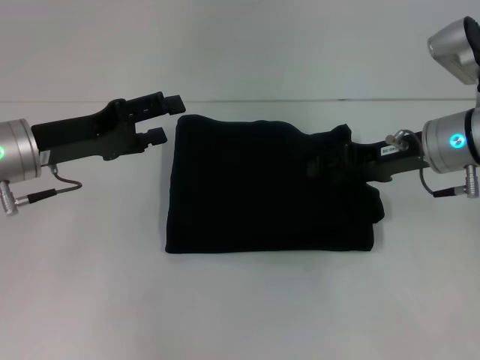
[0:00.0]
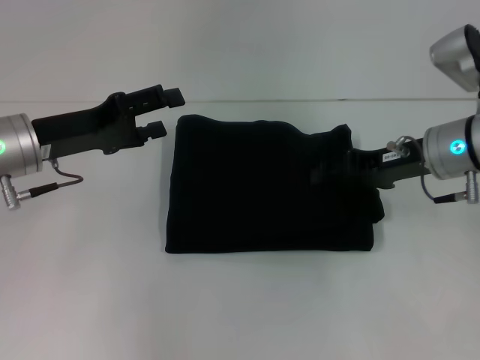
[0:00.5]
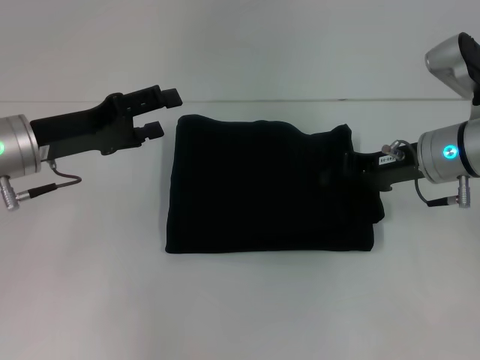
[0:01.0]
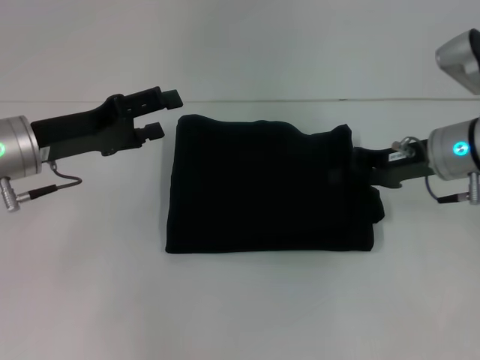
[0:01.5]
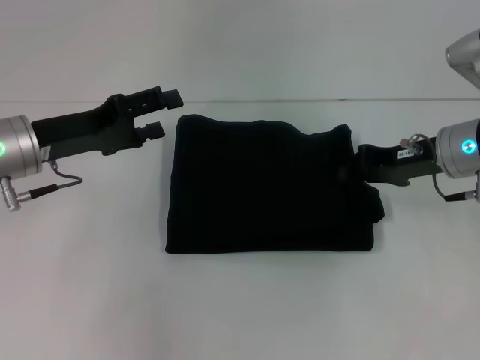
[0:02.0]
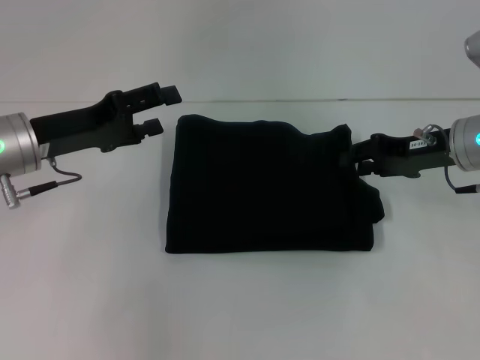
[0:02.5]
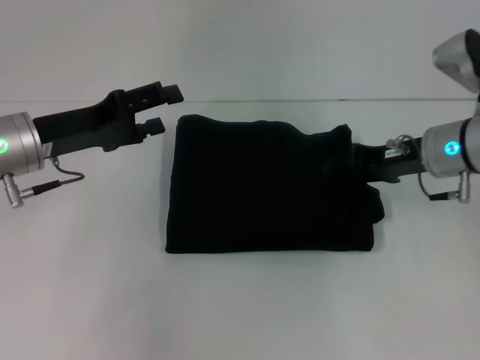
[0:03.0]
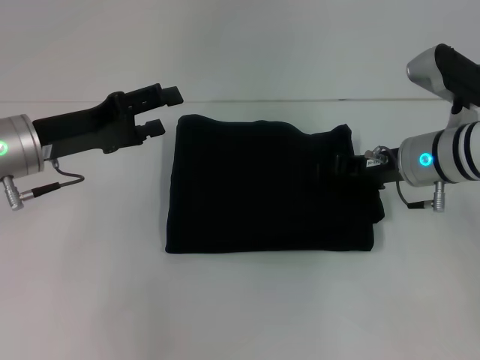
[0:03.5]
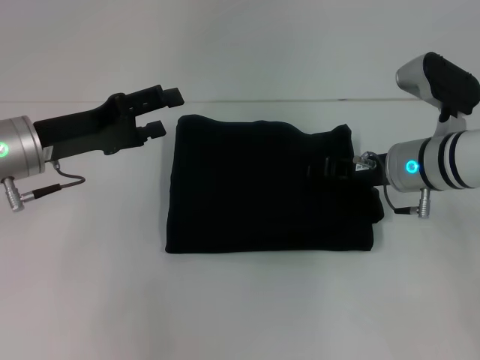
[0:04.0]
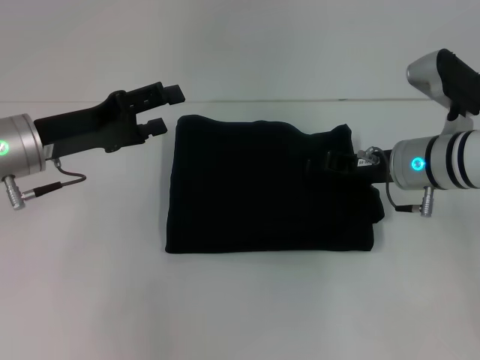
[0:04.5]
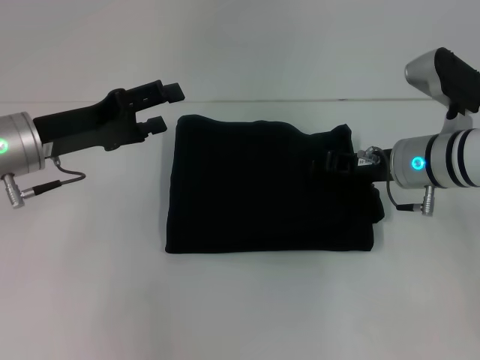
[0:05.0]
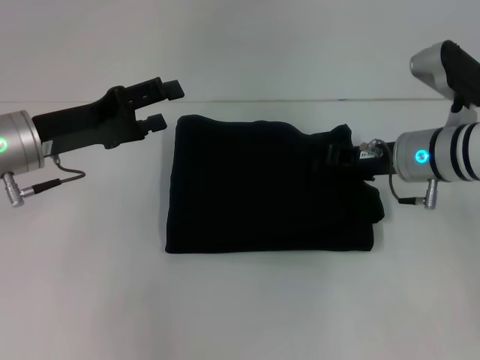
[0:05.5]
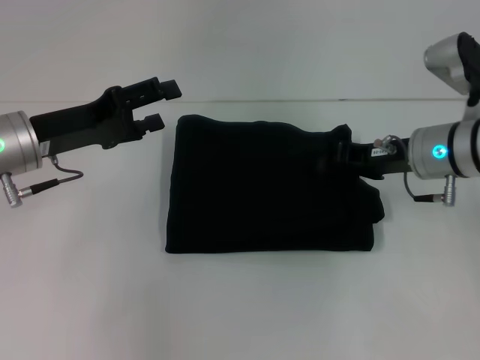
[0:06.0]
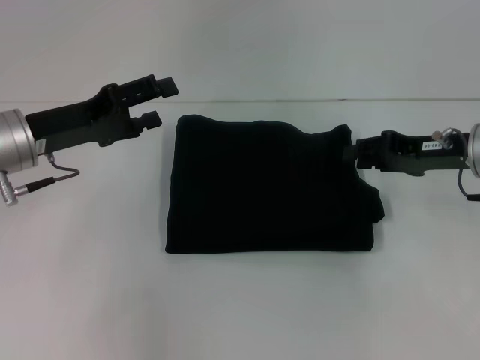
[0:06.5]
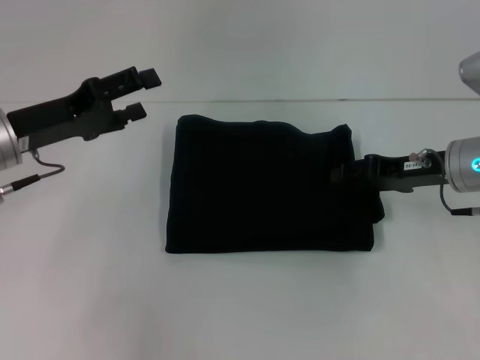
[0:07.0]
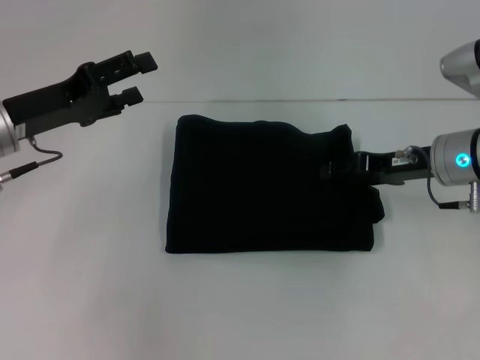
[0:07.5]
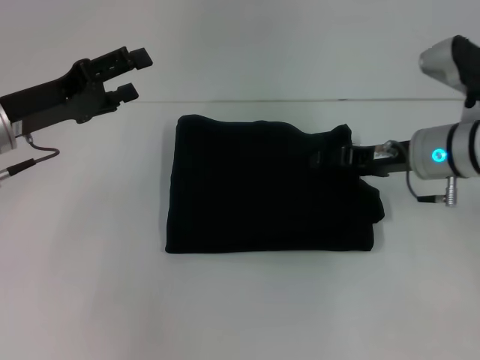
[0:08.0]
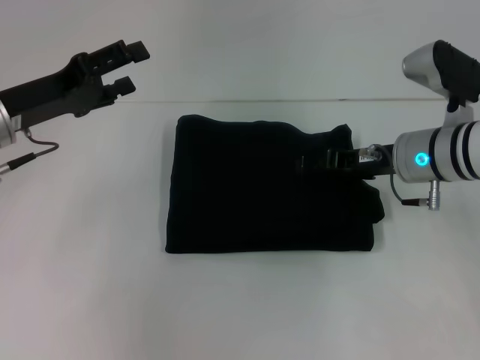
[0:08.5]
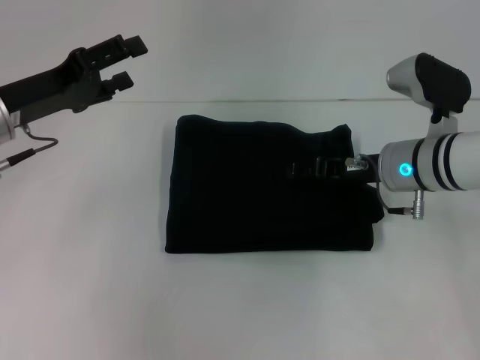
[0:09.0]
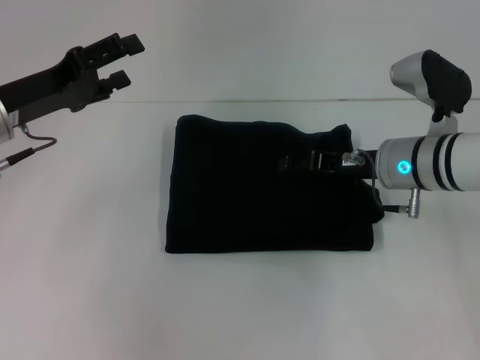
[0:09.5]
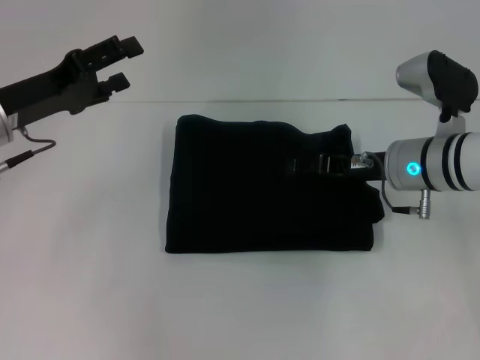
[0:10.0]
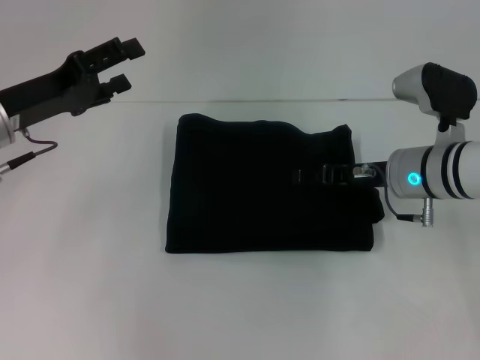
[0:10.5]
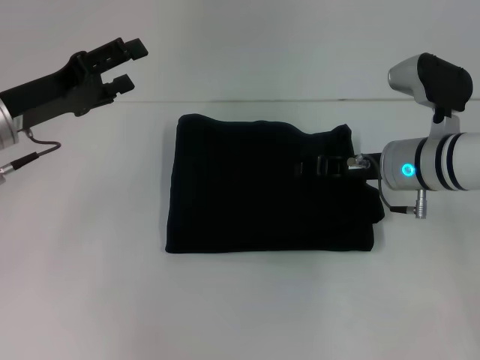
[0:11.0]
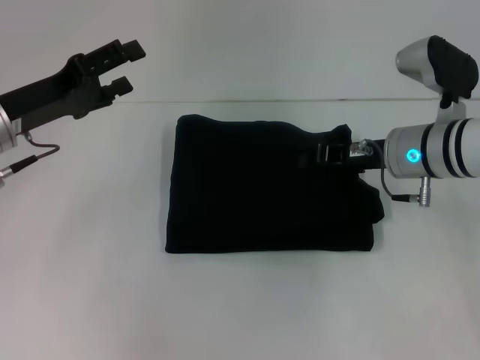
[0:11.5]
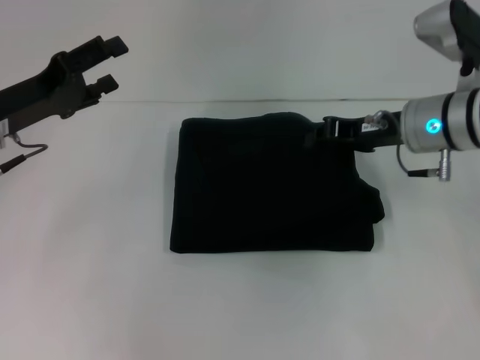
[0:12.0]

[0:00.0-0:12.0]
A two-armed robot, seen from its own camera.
0:00.0 to 0:02.0: The right gripper closes.
0:02.0 to 0:04.0: The right gripper shifts by roughly 5 cm, and opens up.
0:04.0 to 0:06.0: The right gripper closes up.
0:06.0 to 0:08.0: The right gripper opens up.
0:08.0 to 0:10.0: The grippers stay close to where they were, moving slightly.
0:10.0 to 0:12.0: The right gripper travels upward by some 5 cm, and closes its fingers.

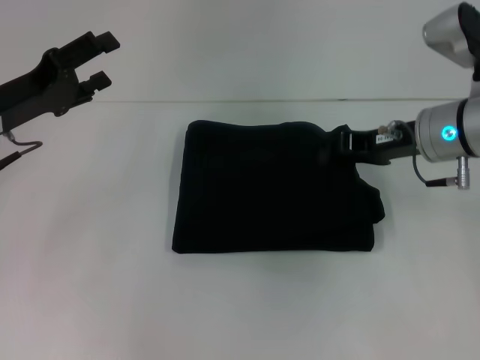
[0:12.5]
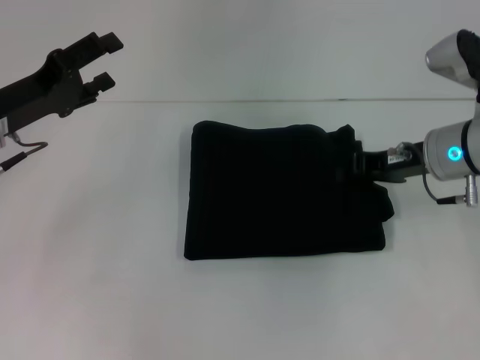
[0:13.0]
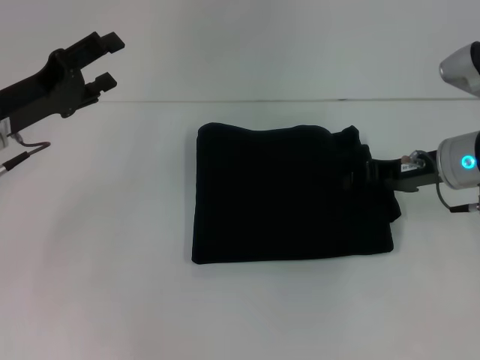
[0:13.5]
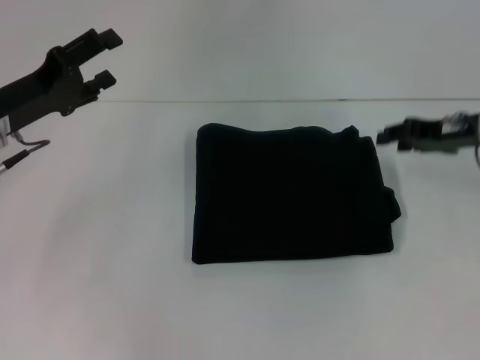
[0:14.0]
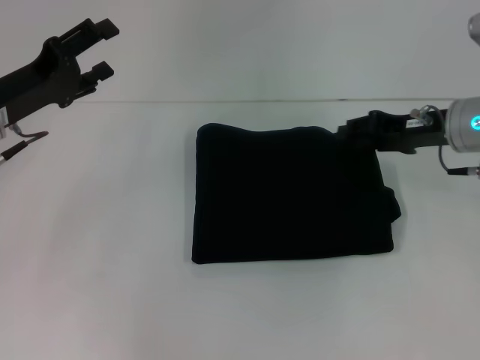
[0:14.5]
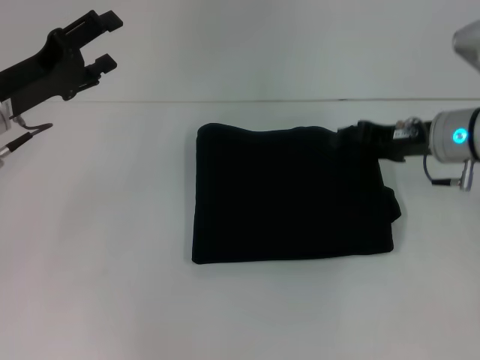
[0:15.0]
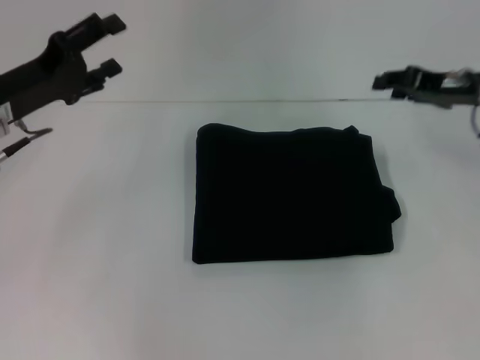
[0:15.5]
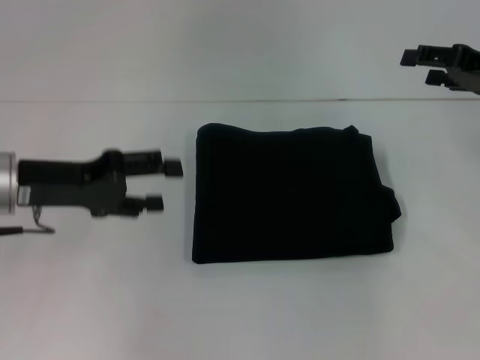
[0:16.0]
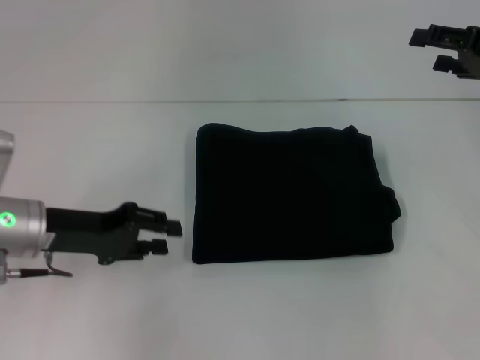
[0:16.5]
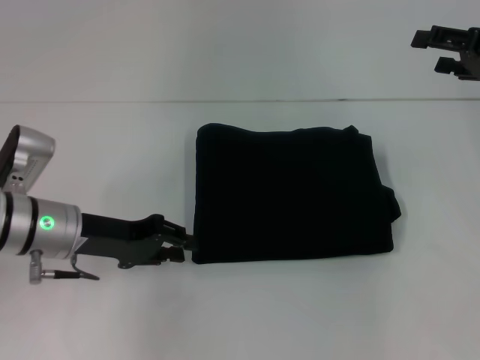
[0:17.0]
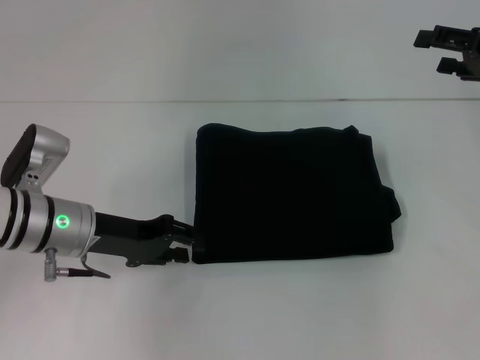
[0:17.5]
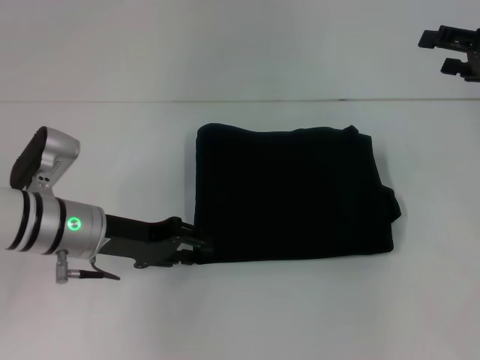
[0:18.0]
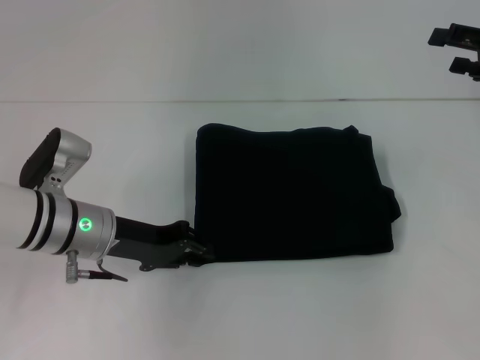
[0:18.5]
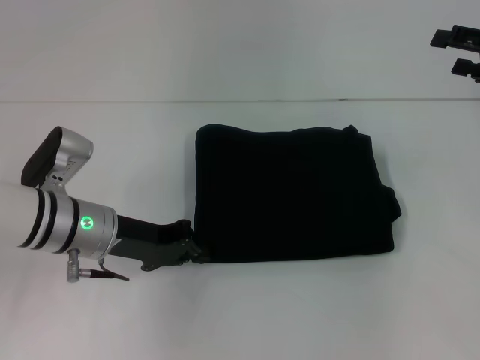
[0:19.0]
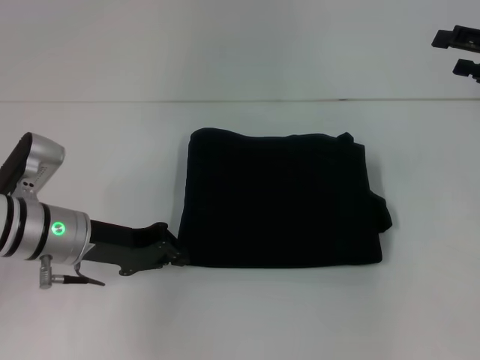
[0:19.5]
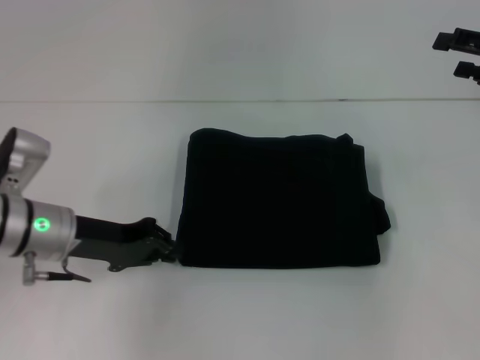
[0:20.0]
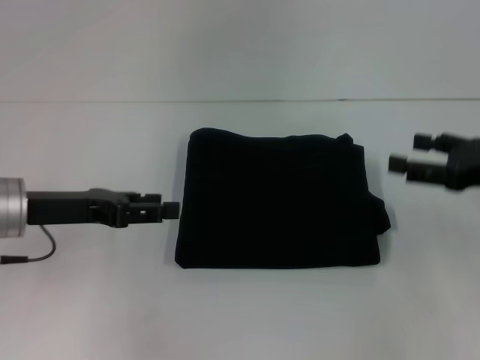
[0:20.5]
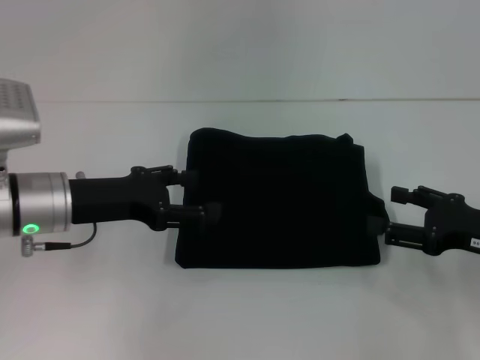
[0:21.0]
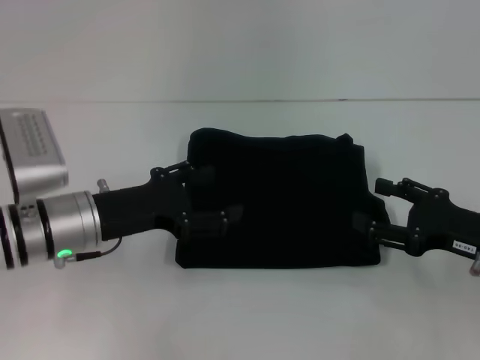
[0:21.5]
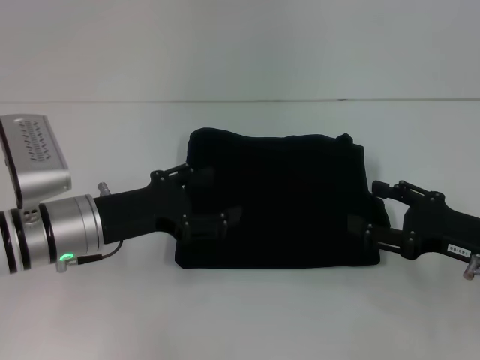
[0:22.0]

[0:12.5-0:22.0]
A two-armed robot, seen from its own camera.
0:12.5 to 0:14.5: The right gripper opens up.
0:14.5 to 0:16.5: The right gripper shifts about 10 cm to the right and upward, and opens up. Meanwhile the left gripper changes place by roughly 5 cm.
0:16.5 to 0:18.0: The left gripper is displaced to the right by approximately 5 cm.
0:18.0 to 0:20.0: The left gripper closes up.
0:20.0 to 0:22.0: The right gripper is displaced downward, backward and to the left by approximately 20 cm, while the left gripper opens.

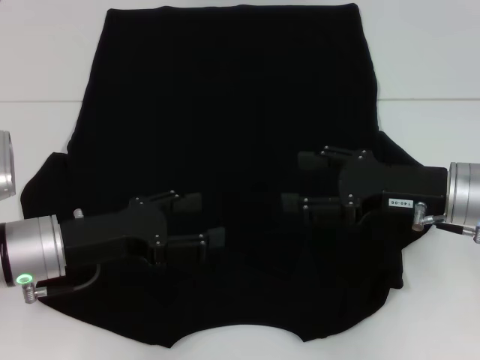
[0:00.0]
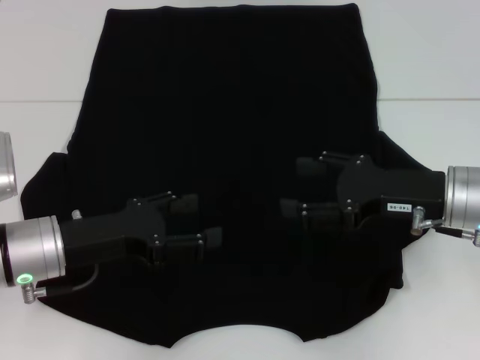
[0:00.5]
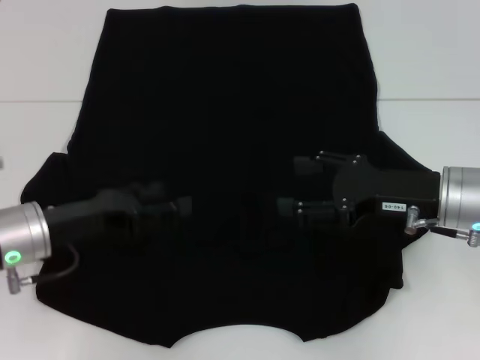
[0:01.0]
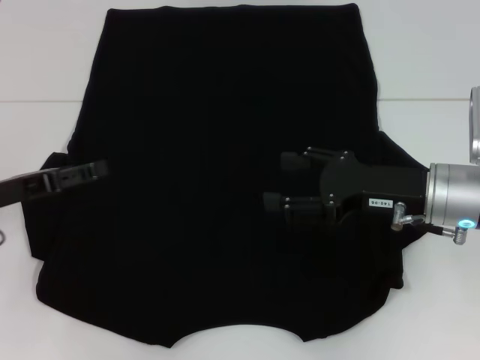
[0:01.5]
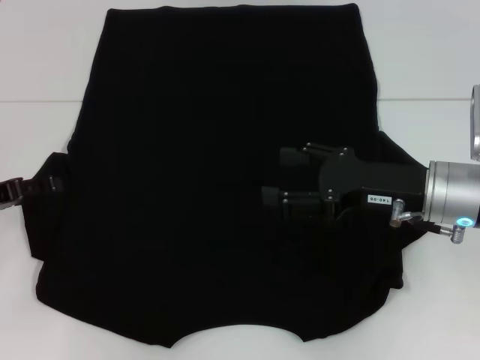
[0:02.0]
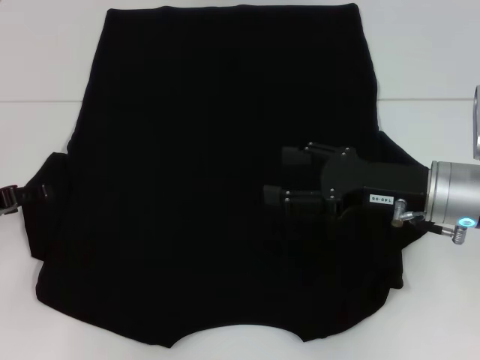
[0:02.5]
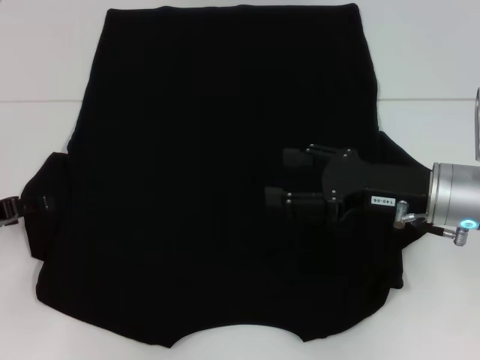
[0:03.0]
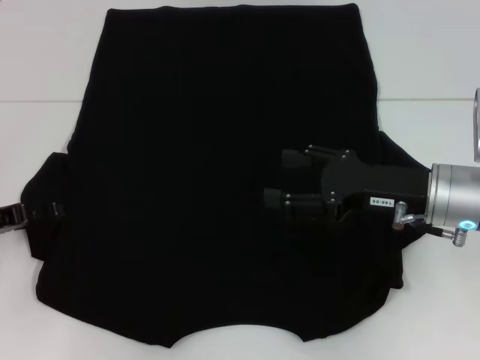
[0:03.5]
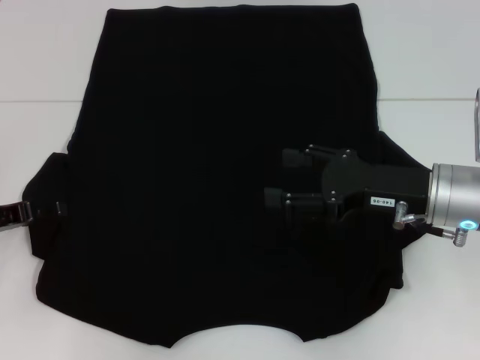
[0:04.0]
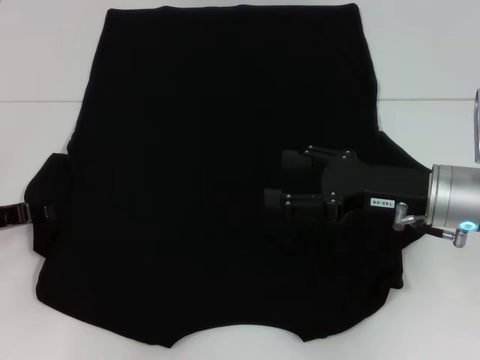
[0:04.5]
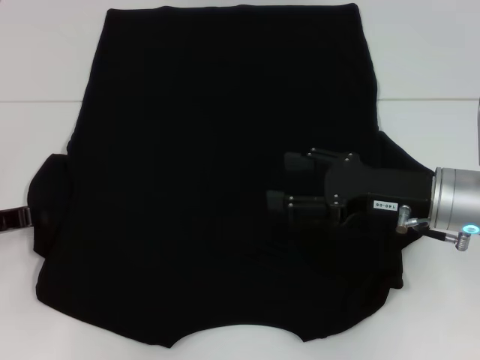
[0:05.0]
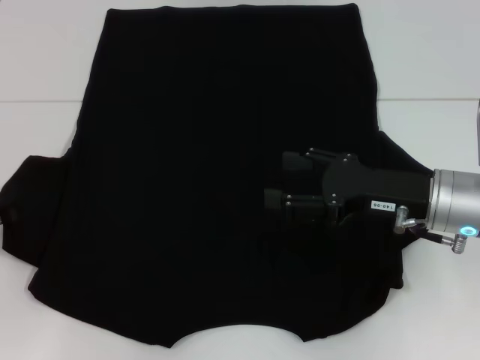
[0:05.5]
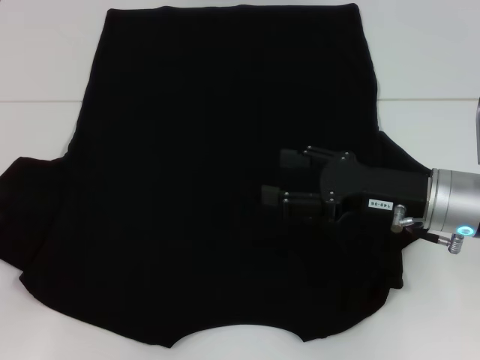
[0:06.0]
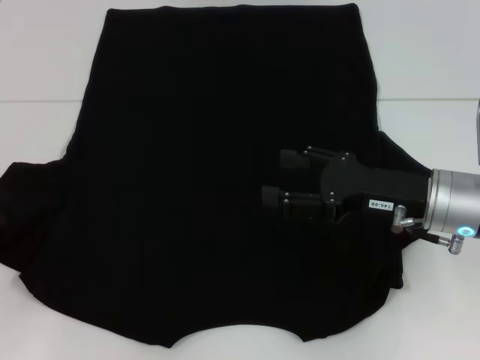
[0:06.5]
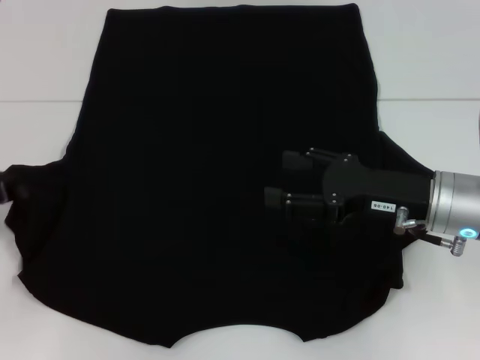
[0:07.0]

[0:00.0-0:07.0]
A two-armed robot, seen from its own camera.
0:00.0 to 0:02.0: The left gripper travels to the left by some 10 cm.
0:02.0 to 0:03.5: The grippers move only a little.
0:03.5 to 0:05.0: The left gripper closes up.
0:05.0 to 0:07.0: The grippers stay close to where they were, moving slightly.
